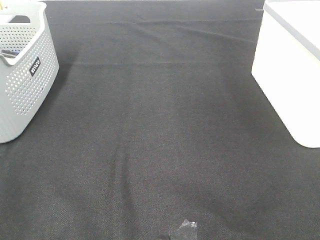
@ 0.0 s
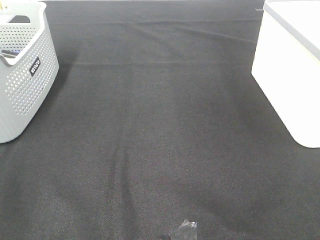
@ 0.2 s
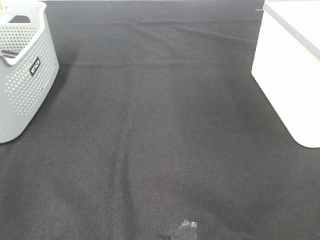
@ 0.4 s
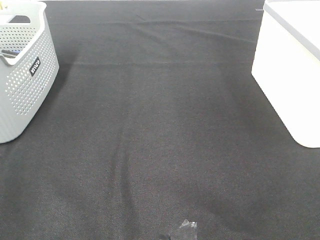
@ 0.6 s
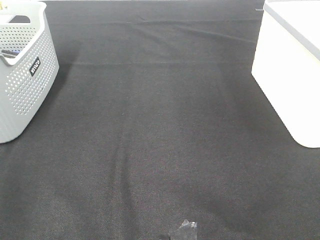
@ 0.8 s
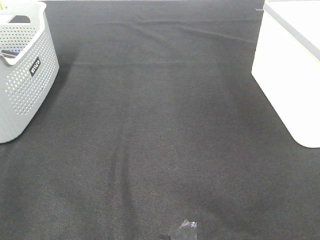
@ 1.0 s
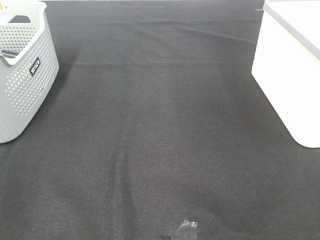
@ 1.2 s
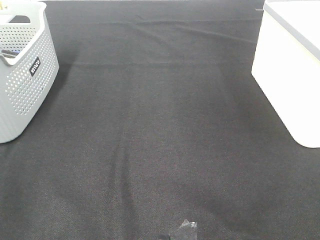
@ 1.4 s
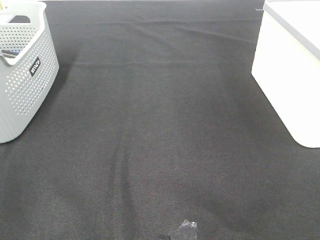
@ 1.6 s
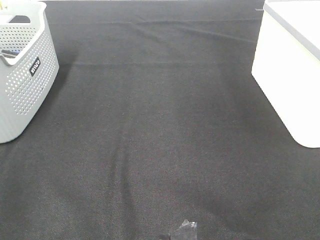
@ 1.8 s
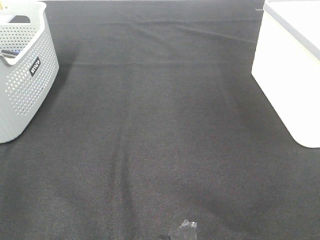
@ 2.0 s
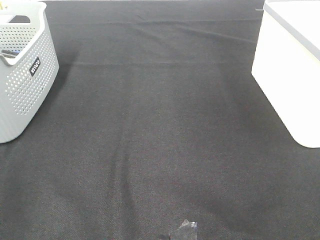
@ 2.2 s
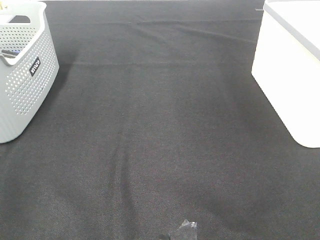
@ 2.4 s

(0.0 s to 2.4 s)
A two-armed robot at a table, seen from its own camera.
1.2 s - 2.4 s: Both grippers stay about where they are.

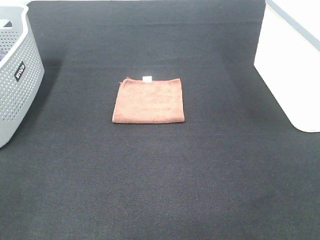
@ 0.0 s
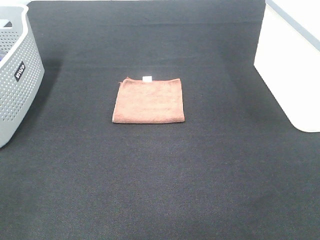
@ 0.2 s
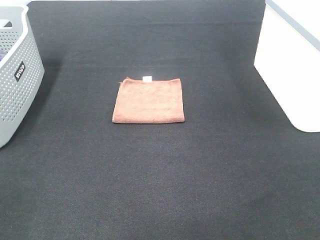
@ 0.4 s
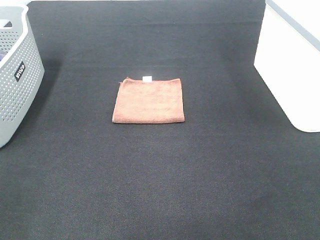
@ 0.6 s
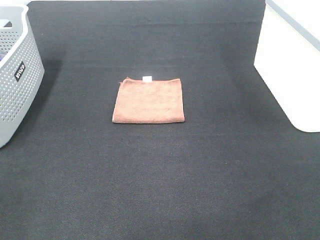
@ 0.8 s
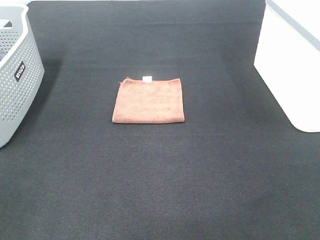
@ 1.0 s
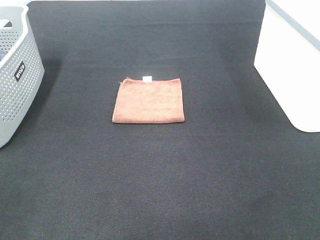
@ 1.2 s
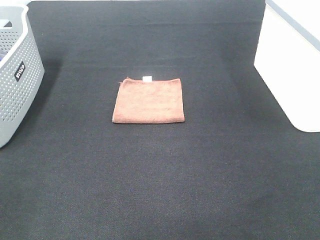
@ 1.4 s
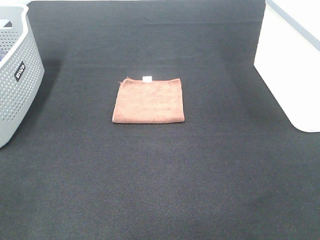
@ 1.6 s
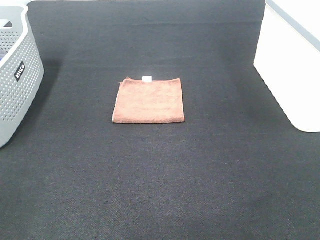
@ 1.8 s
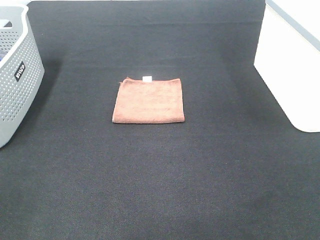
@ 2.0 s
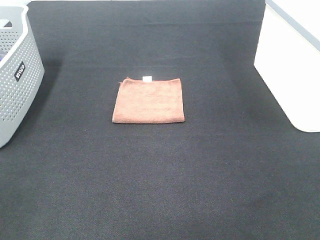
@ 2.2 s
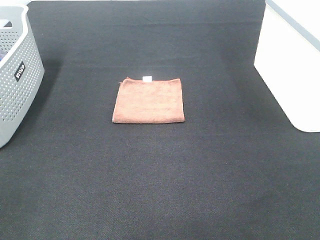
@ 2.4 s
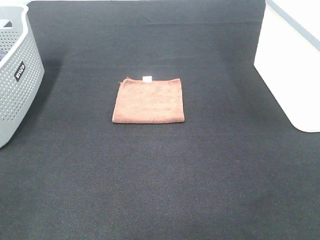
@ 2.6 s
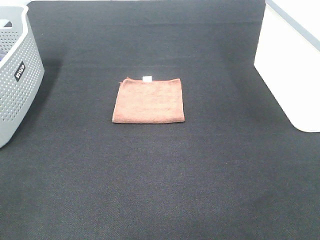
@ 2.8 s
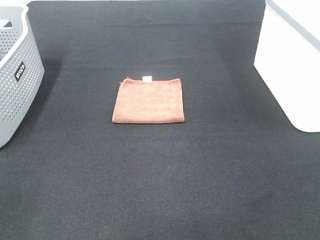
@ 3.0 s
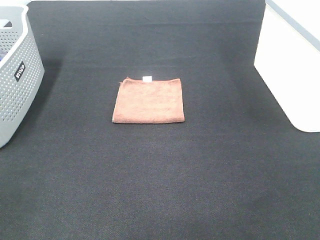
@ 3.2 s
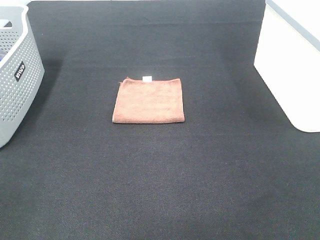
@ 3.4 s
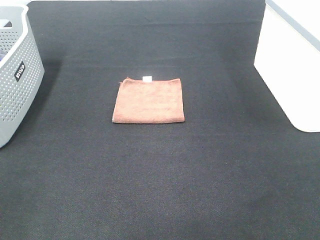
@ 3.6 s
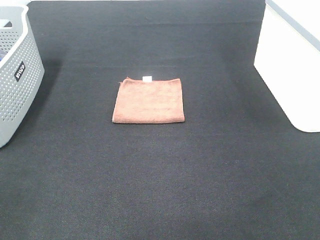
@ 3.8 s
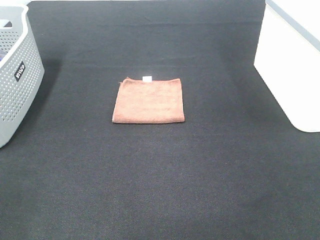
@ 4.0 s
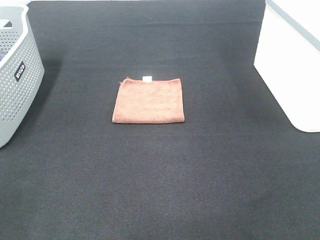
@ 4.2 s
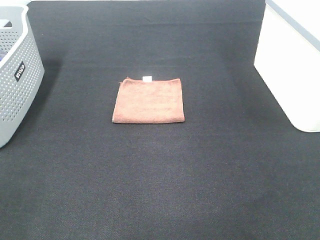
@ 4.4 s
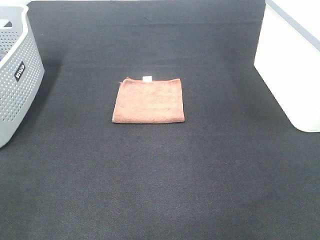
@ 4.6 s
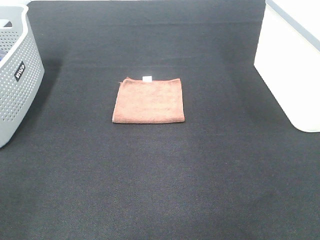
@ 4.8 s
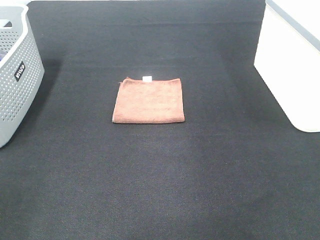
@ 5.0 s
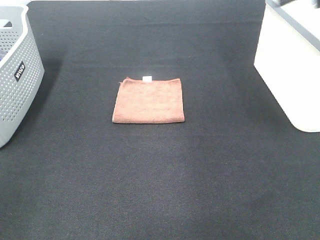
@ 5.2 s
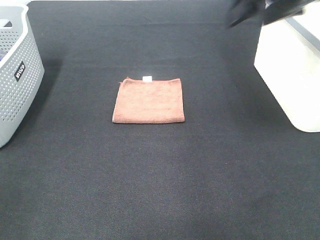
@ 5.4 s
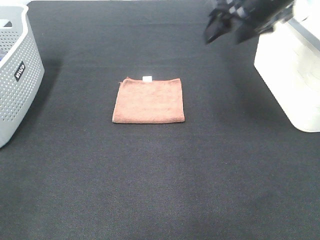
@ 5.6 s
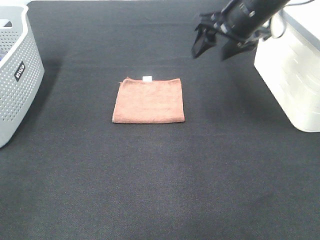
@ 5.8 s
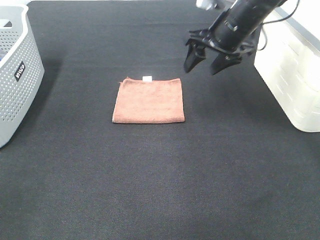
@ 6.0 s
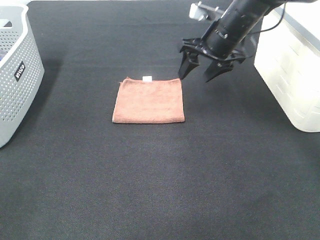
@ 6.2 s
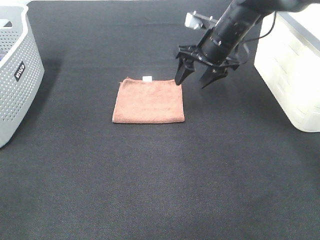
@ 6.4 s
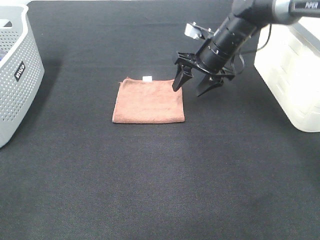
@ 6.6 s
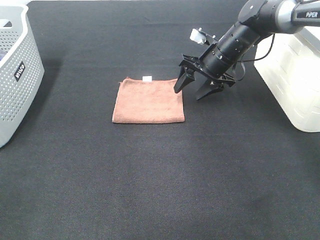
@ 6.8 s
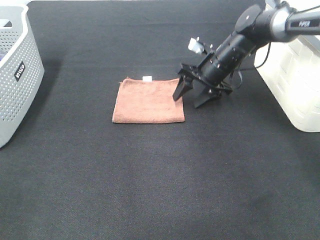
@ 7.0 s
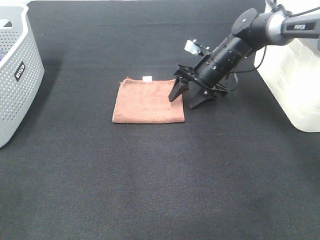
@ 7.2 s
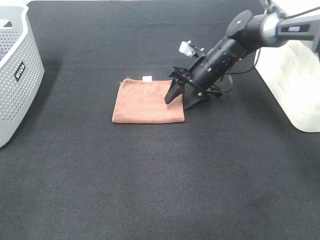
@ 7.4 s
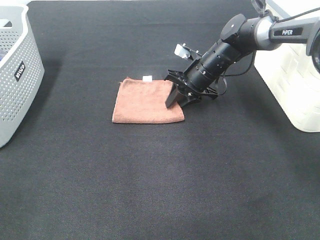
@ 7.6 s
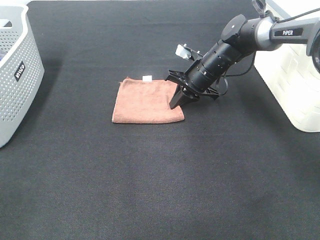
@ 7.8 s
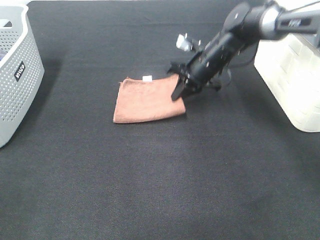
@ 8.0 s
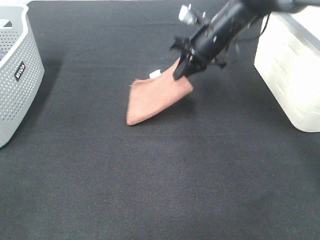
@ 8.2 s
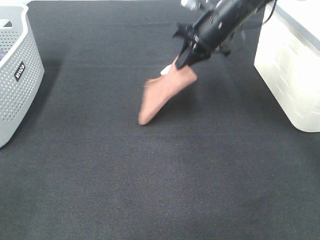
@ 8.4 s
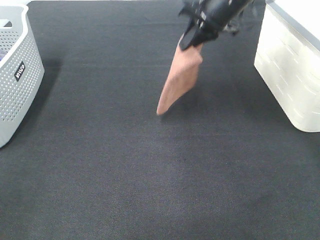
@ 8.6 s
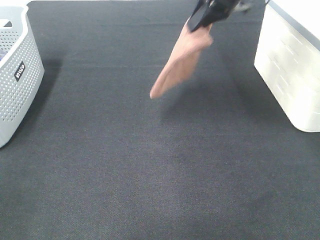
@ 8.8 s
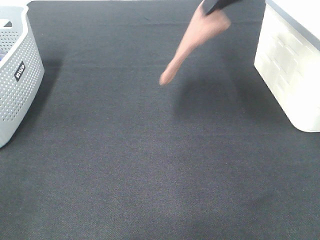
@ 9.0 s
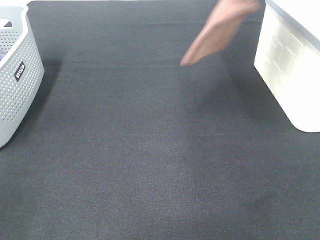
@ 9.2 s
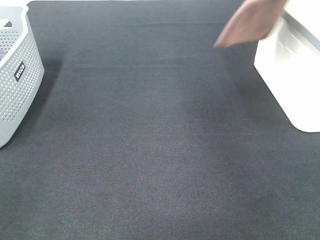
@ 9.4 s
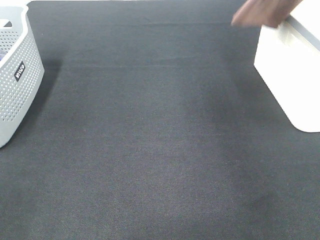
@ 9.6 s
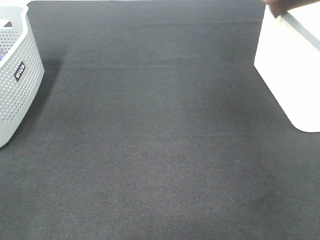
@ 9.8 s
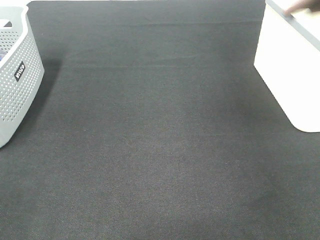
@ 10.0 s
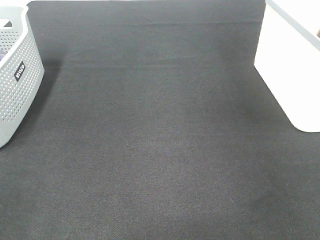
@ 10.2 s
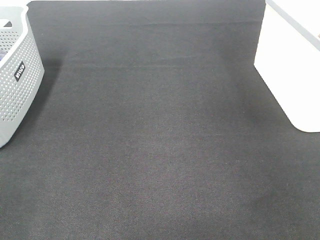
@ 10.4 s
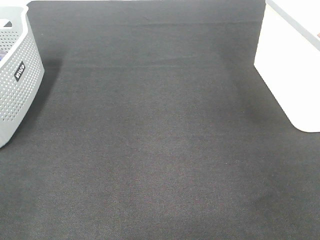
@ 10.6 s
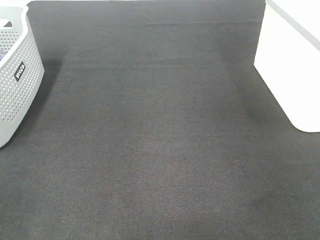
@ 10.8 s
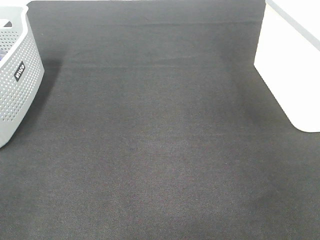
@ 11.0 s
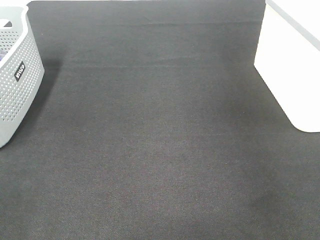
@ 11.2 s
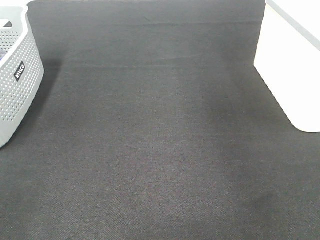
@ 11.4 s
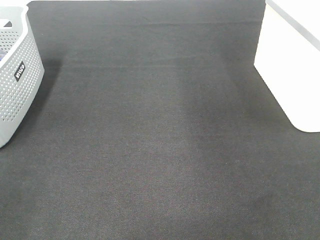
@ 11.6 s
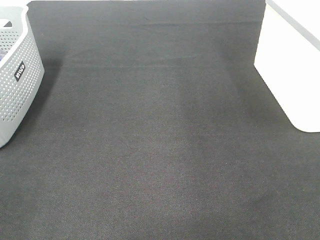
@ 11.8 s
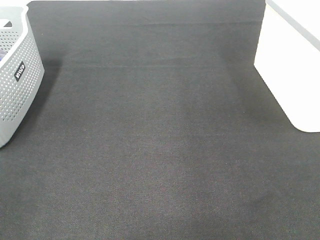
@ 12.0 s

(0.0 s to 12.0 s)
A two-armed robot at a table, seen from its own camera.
Step, 0.0 s - 8.0 s: Right hand: grab the folded brown towel.
Step, 8.2 s - 11.2 s: Right hand: place the brown towel in right basket.
0.0 s - 3.0 s: Both grippers stay put.
4.4 s - 6.0 s: The right gripper shifts approximately 40 cm forward, to the left and downward.
6.0 s - 7.6 s: The right gripper goes some 10 cm downward, and closes its fingers.
7.6 s - 9.0 s: The right gripper goes some 25 cm upward.
9.0 s - 10.4 s: The right gripper moves to the right, some 25 cm.
